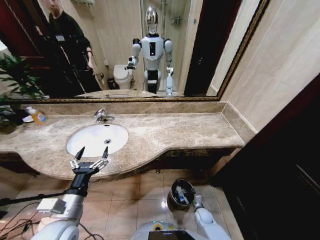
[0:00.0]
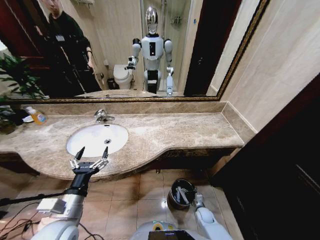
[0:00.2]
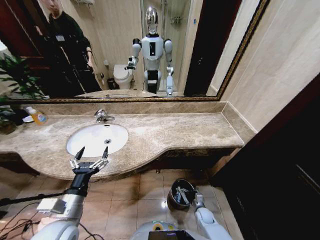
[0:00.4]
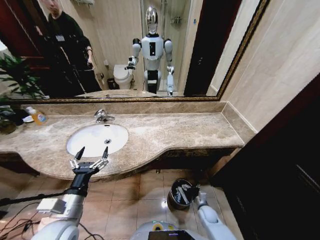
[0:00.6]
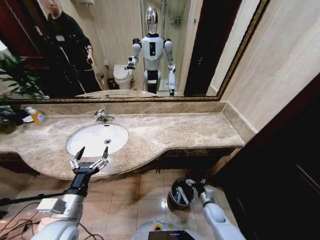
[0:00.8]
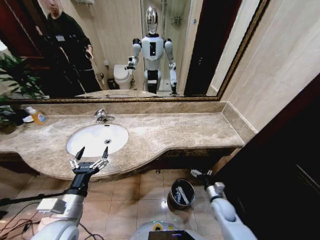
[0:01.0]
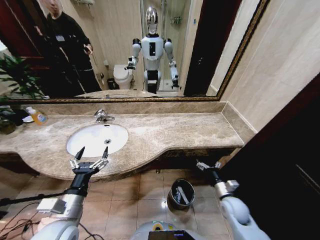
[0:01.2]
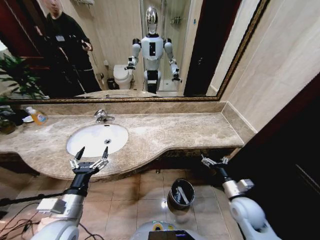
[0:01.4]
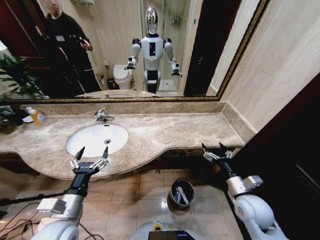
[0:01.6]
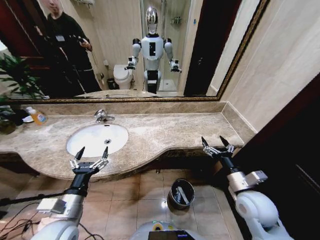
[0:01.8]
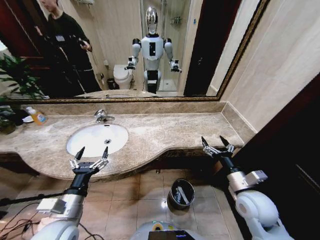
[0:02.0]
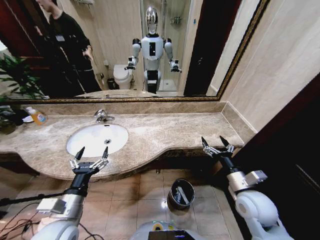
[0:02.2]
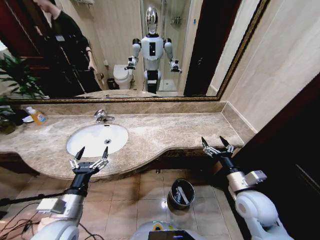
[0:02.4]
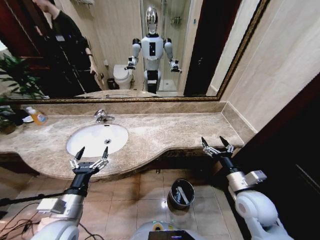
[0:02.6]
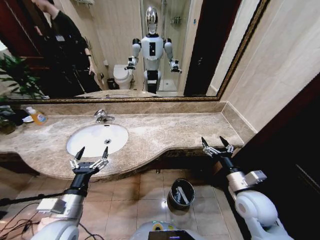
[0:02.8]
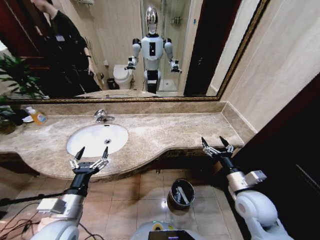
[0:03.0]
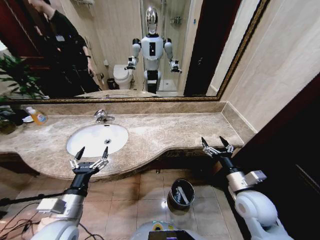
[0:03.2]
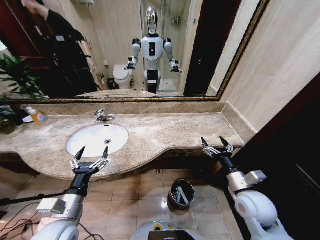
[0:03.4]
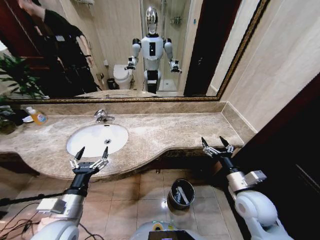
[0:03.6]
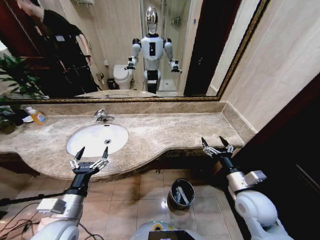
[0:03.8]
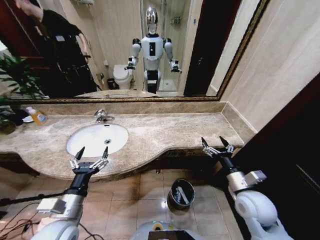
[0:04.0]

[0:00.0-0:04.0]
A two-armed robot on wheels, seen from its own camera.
Task of the whole recording: Pick up the trash from the sink and place it in the trash bin.
0:00.0 to 0:01.4: The right gripper shifts about 30 cm upward, and opens its fingers.
0:01.4 to 0:02.6: The right gripper is displaced upward by approximately 10 cm.
0:02.6 to 0:04.0: The two grippers keep their place.

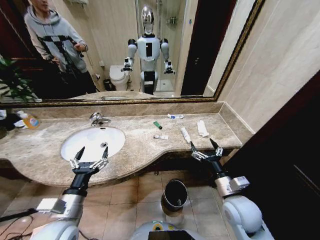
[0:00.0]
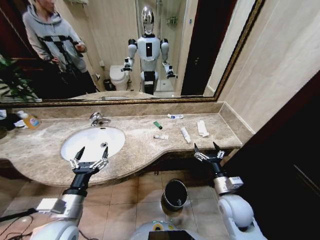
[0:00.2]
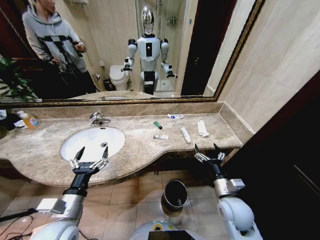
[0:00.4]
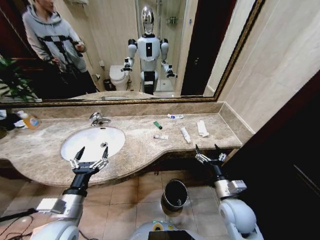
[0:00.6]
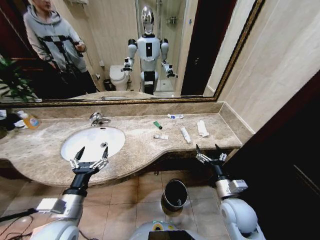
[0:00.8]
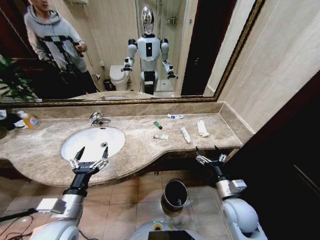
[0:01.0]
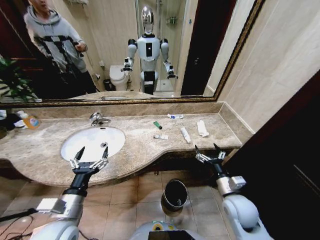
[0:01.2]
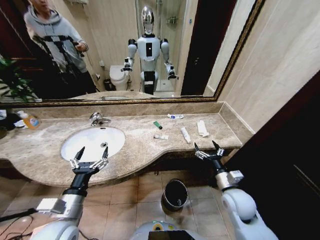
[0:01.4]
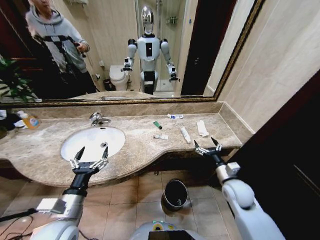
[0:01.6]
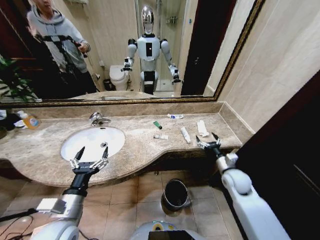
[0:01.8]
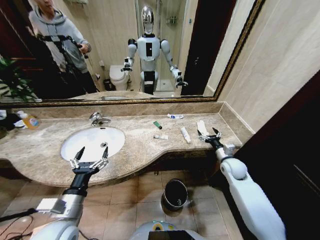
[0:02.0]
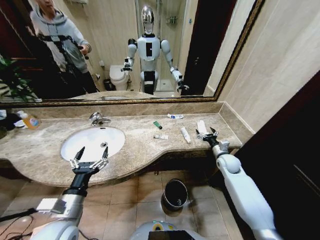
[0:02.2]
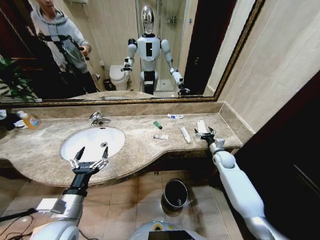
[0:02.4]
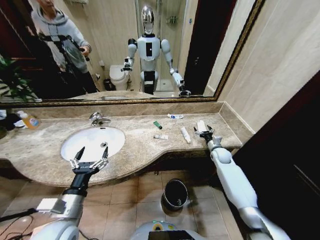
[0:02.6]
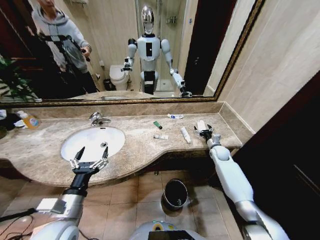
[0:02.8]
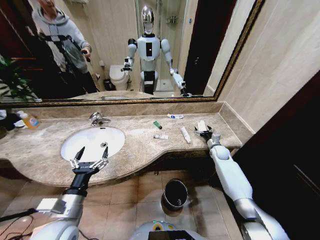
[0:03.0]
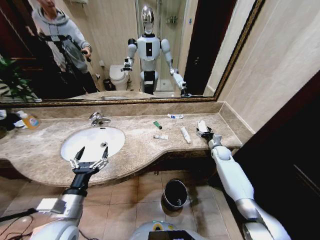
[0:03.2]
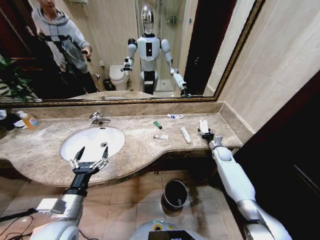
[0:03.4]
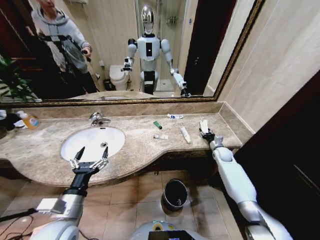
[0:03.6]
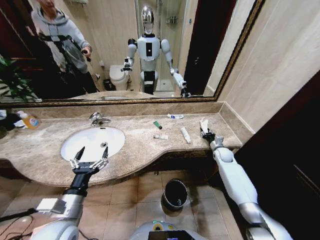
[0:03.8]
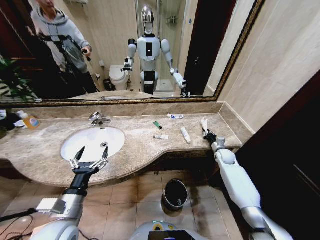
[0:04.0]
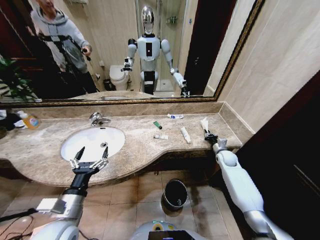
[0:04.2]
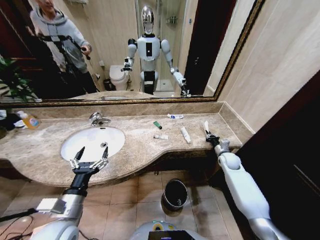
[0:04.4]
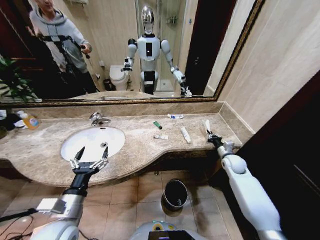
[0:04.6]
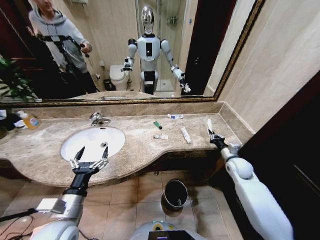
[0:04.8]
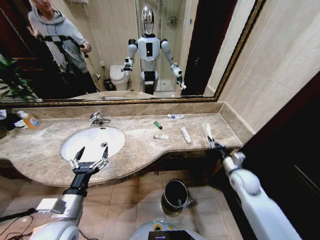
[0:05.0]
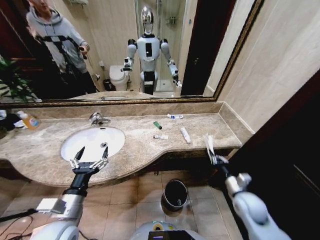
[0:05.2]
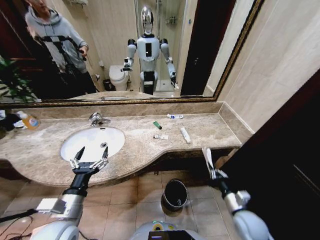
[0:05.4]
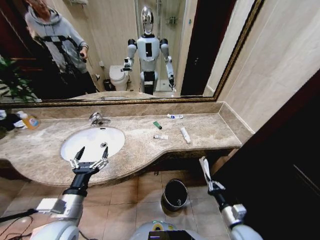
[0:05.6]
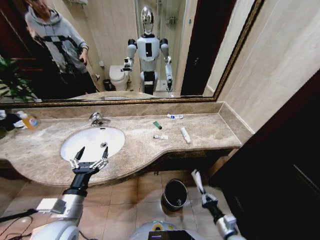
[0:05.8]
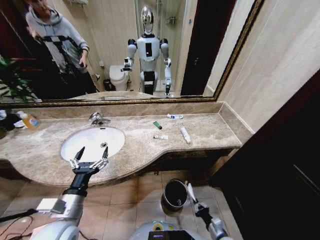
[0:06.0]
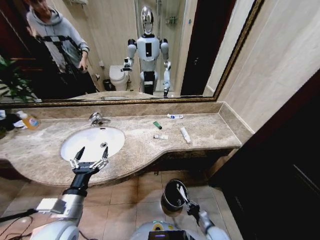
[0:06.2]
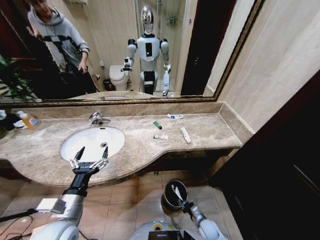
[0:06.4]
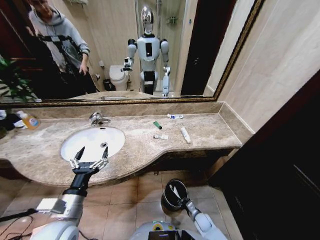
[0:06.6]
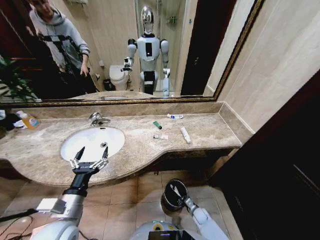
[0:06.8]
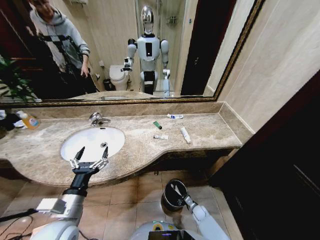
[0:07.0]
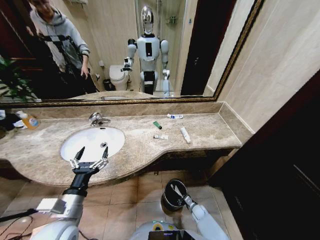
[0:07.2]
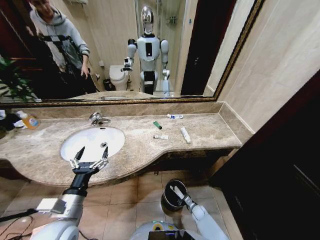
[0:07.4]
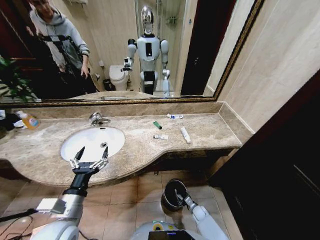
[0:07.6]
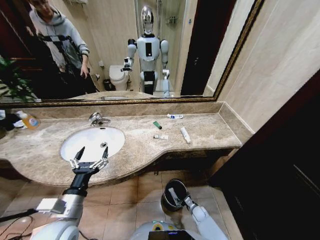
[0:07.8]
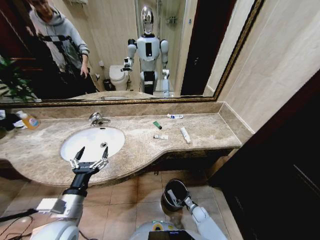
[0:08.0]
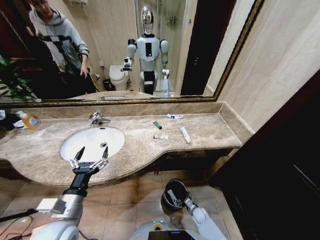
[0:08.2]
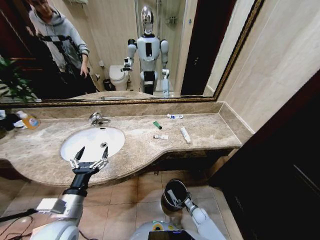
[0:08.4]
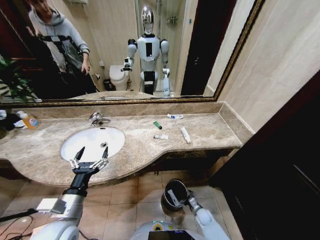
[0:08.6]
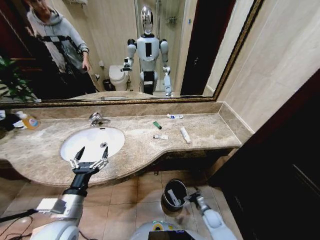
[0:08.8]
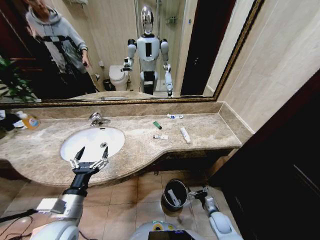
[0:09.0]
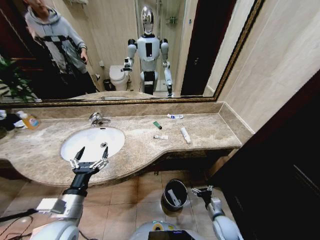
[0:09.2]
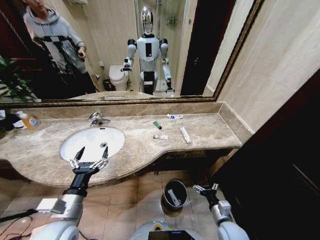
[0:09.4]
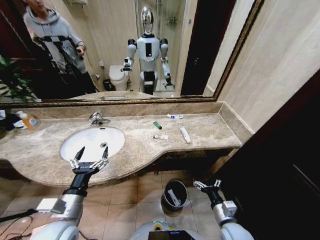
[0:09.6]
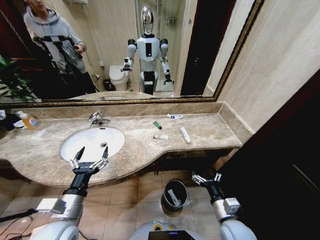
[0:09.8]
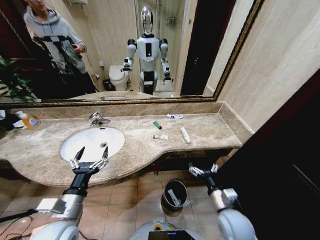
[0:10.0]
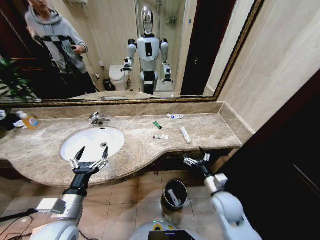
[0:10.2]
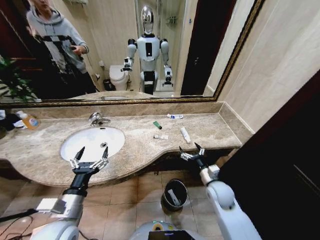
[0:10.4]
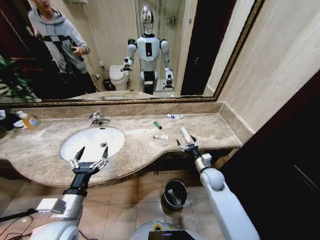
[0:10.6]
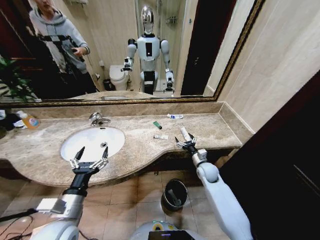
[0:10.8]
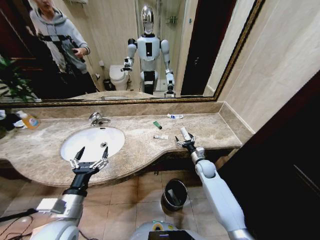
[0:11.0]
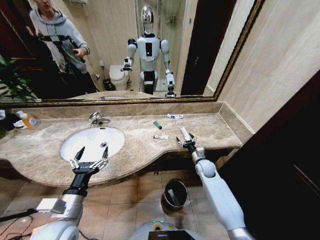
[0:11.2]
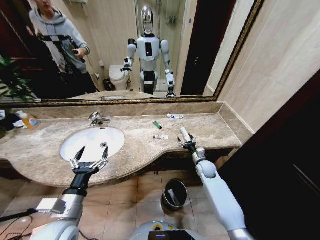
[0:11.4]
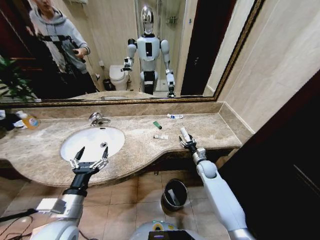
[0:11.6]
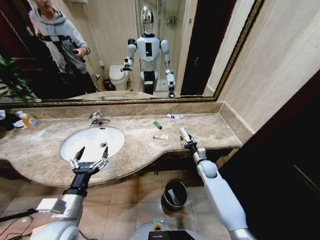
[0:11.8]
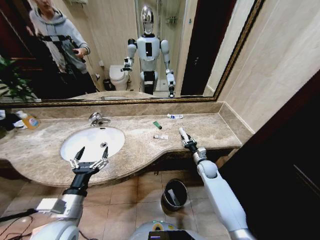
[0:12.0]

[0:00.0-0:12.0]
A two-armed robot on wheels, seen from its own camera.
Task of the whole recording: Pick up the trash from the sink and place it in the trash bin.
0:01.6 to 0:03.0: The right gripper heads forward, covering about 25 cm.
0:03.0 to 0:04.4: The right gripper shifts about 5 cm backward, and closes its fingers.
0:04.4 to 0:06.0: The right gripper travels backward and downward by approximately 35 cm.
0:06.0 to 0:07.6: The right gripper shifts roughly 20 cm forward and downward, and opens up.
0:07.6 to 0:09.0: The right gripper heads upward and backward, covering approximately 10 cm, and opens up.
0:09.0 to 0:10.4: The right gripper travels upward by some 20 cm.
0:10.4 to 0:12.0: The right gripper shifts about 15 cm forward, and closes.

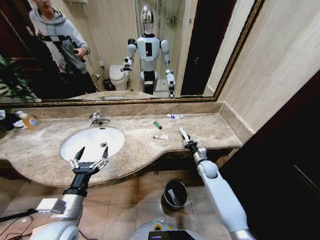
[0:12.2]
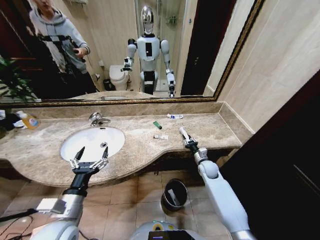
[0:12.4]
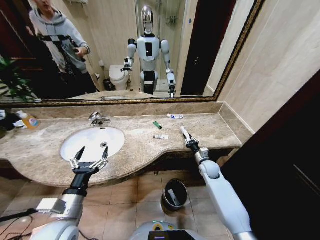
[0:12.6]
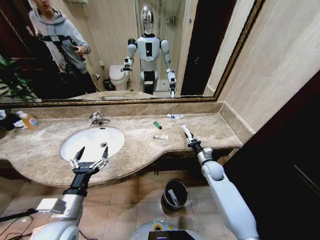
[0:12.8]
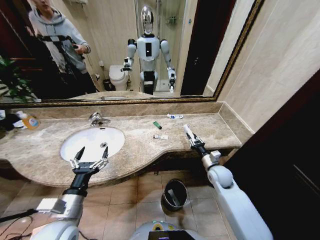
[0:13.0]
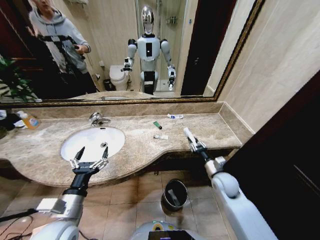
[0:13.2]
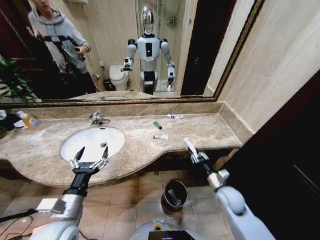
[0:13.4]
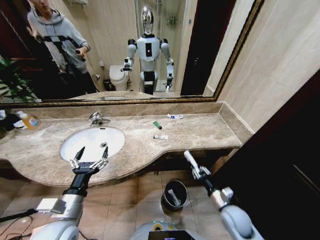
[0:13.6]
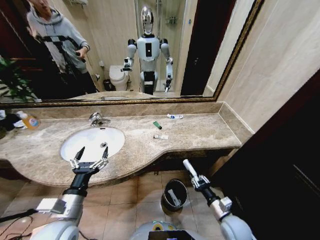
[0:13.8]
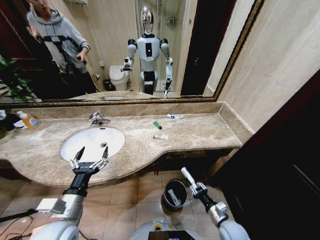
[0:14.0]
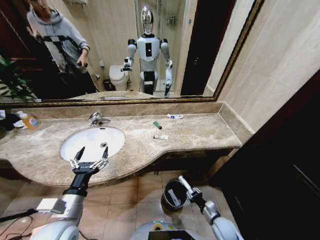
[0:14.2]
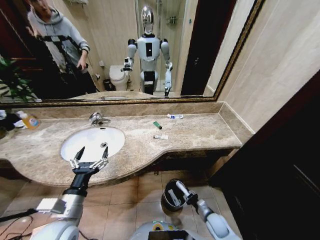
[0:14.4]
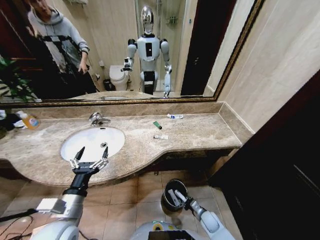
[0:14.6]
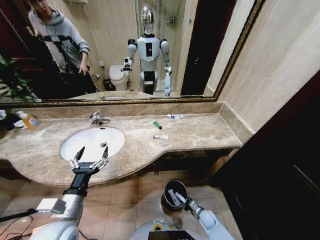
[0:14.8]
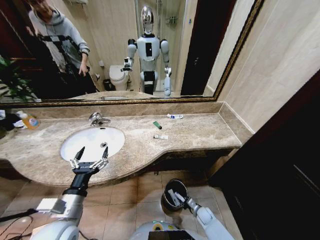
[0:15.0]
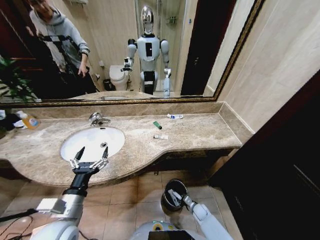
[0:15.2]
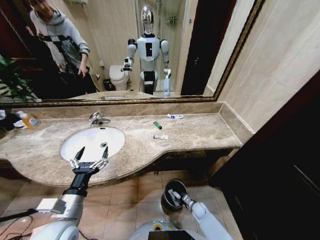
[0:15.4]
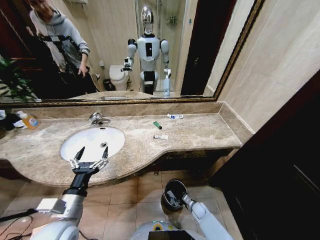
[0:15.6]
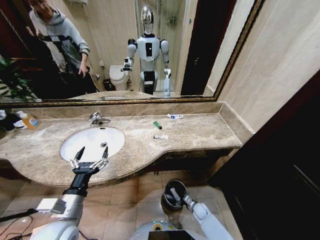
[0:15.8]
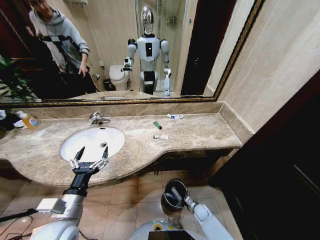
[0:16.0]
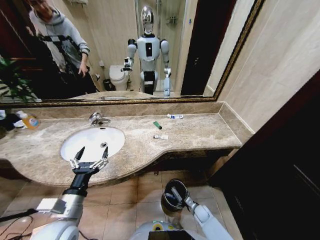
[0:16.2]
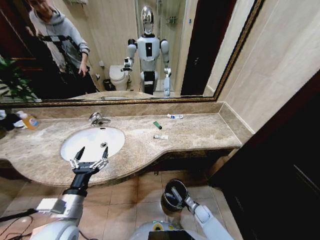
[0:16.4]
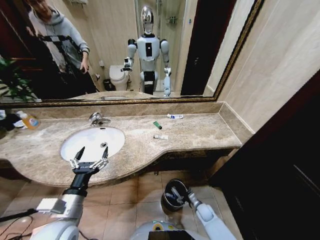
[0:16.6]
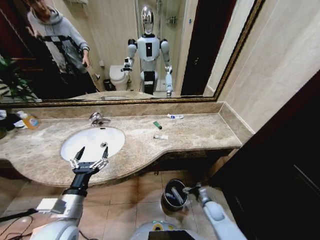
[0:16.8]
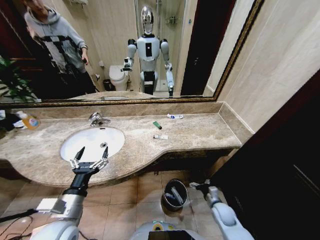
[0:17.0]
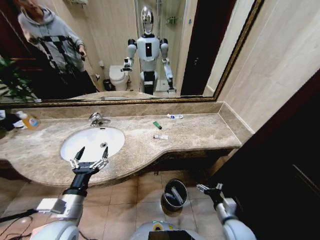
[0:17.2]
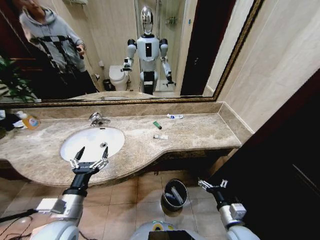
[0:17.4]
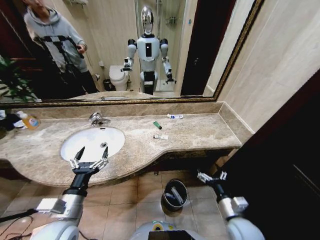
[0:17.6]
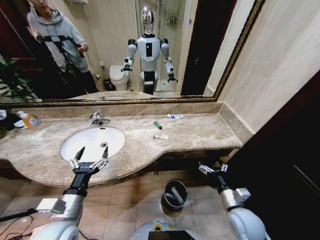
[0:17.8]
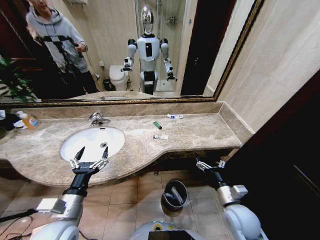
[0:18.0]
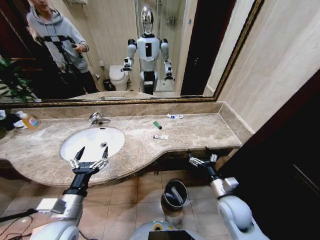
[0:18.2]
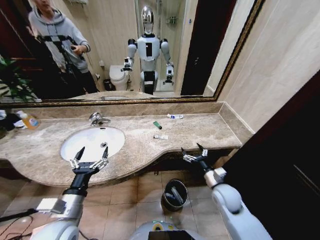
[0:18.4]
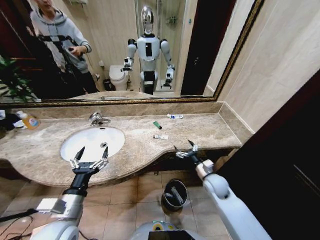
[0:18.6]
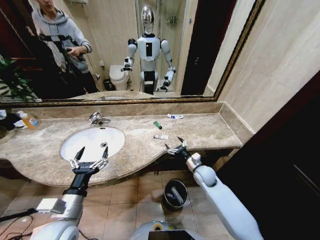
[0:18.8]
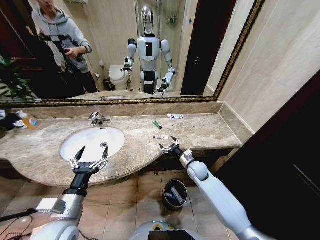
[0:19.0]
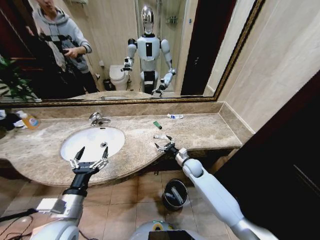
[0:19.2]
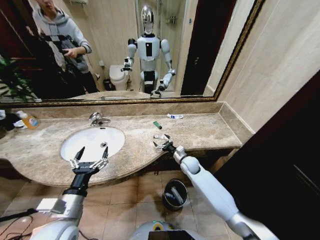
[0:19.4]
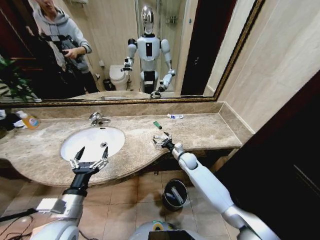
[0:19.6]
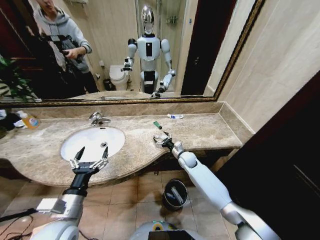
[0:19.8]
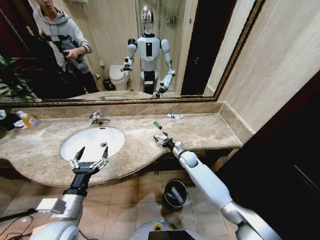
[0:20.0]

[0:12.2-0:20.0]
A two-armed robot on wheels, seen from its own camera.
Task of the whole recording: Pick up the trash from the sink and place it in the trash bin.
0:12.2 to 0:13.8: The right gripper travels backward by about 25 cm.
0:13.8 to 0:15.4: The right gripper heads downward and forward, covering some 25 cm.
0:15.4 to 0:16.8: The right gripper travels upward by about 10 cm, and opens its fingers.
0:16.8 to 0:18.4: The right gripper goes roughly 20 cm upward.
0:18.4 to 0:20.0: The right gripper goes approximately 25 cm forward and to the left.
